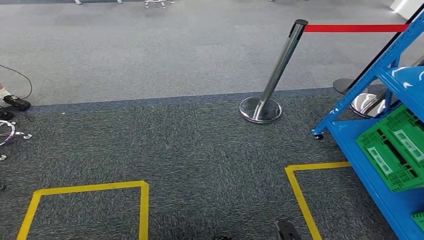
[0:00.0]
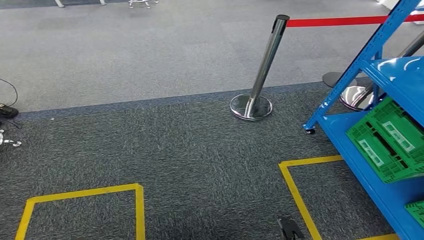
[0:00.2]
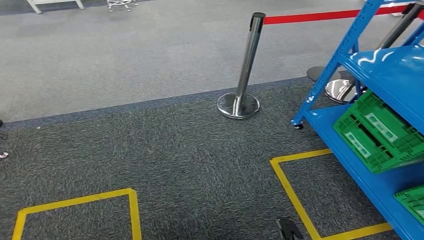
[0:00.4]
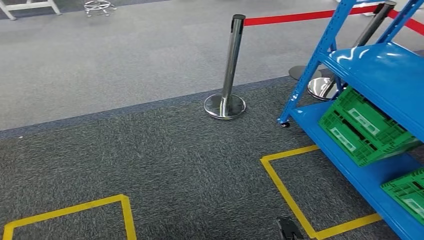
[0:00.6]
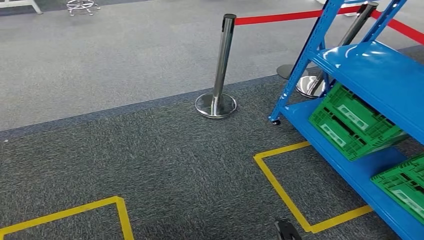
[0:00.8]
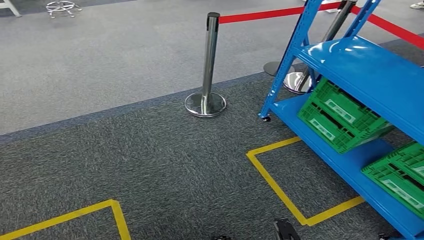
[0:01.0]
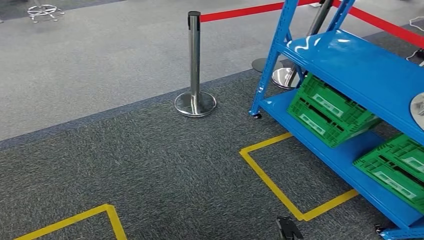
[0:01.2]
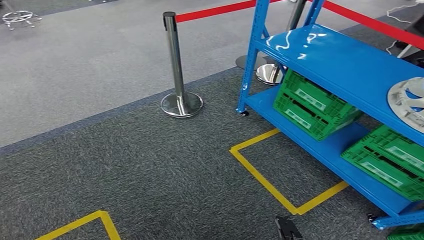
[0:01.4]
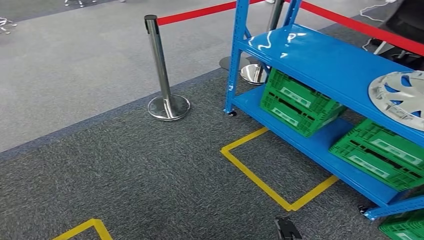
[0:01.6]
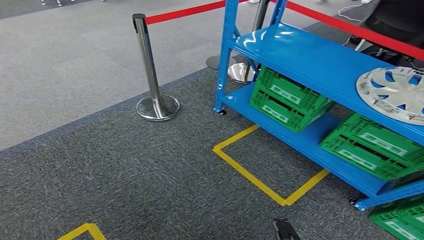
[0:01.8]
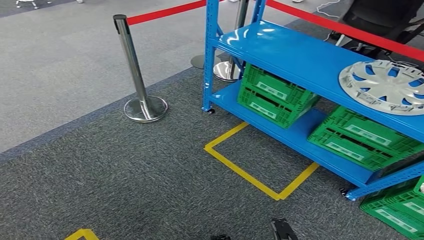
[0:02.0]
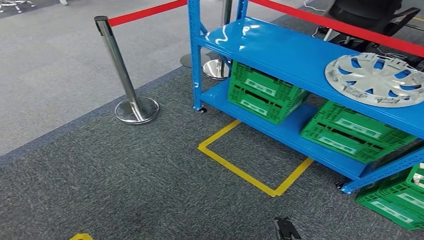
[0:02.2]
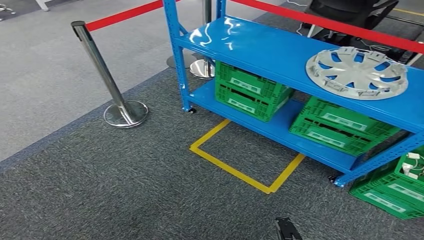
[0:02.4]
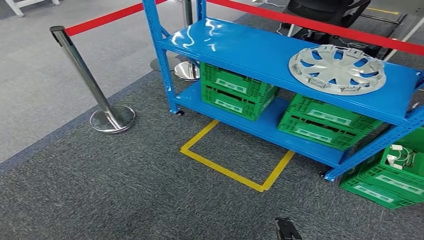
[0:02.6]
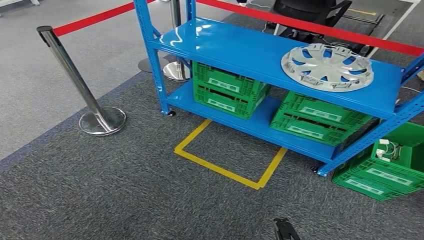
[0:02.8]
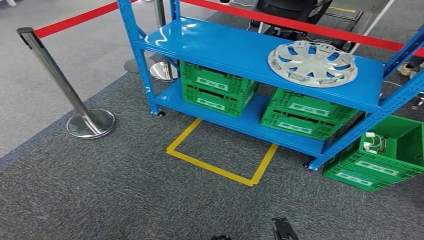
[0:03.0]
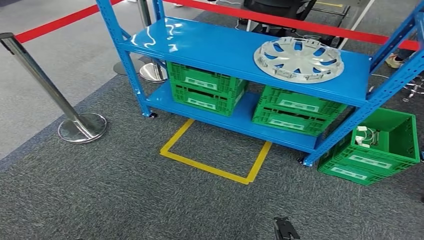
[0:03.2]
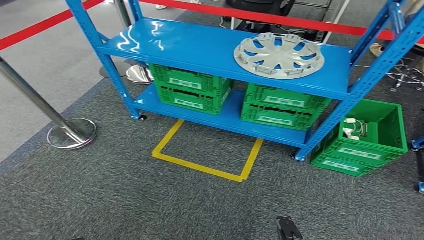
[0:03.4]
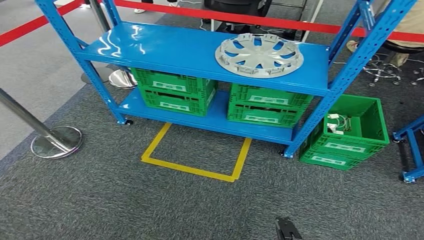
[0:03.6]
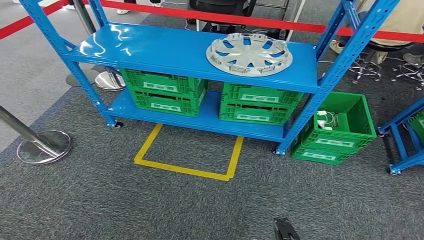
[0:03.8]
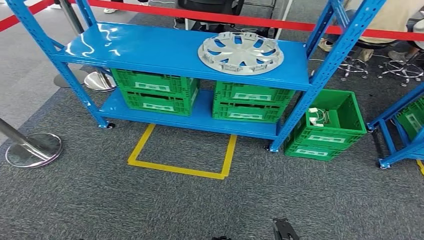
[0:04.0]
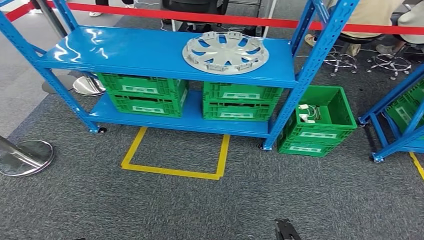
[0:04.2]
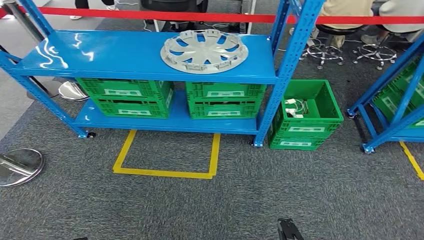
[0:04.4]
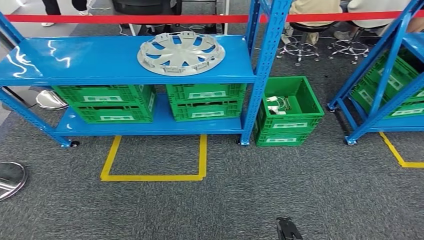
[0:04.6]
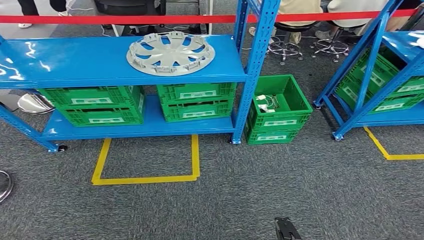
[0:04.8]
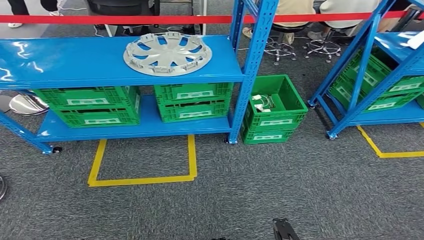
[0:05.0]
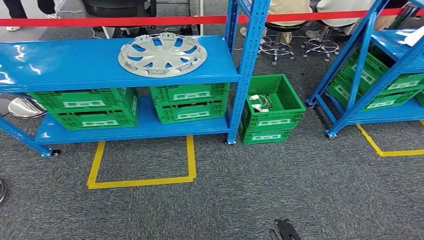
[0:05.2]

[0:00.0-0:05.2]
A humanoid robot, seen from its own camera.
Step, 0:00.0 to 0:05.2: Return to the initial position at the workbench.
